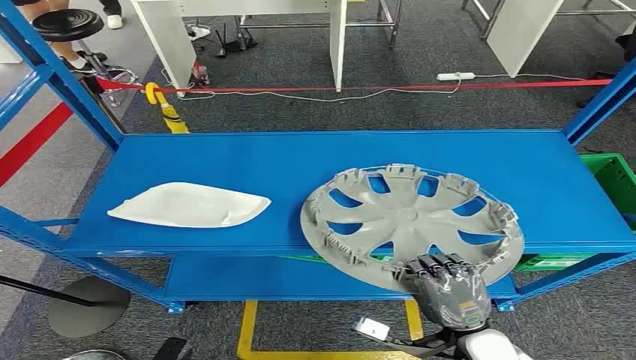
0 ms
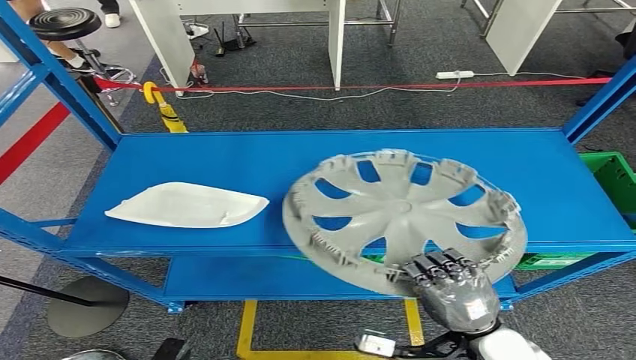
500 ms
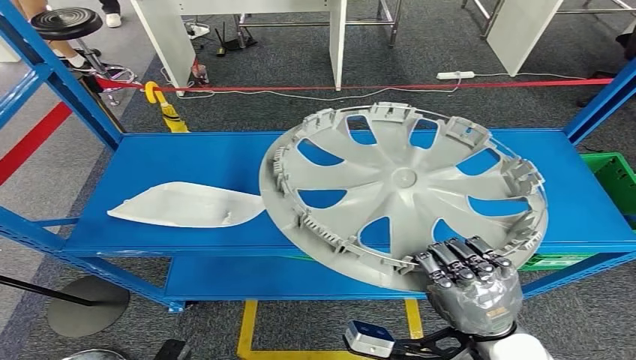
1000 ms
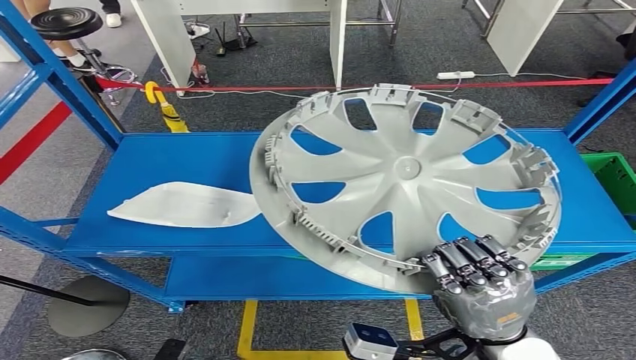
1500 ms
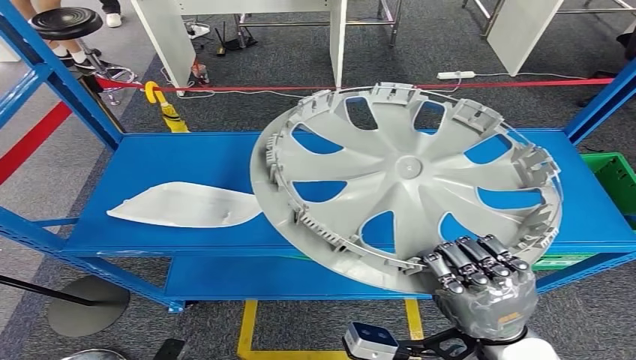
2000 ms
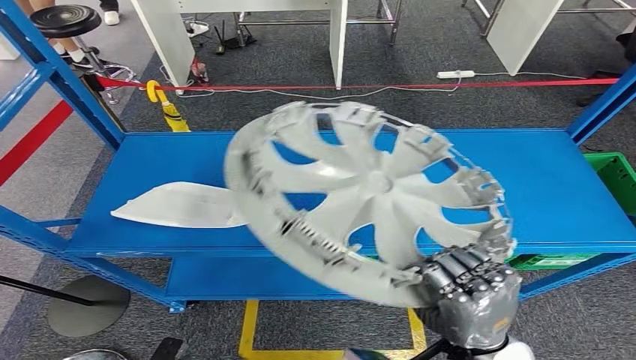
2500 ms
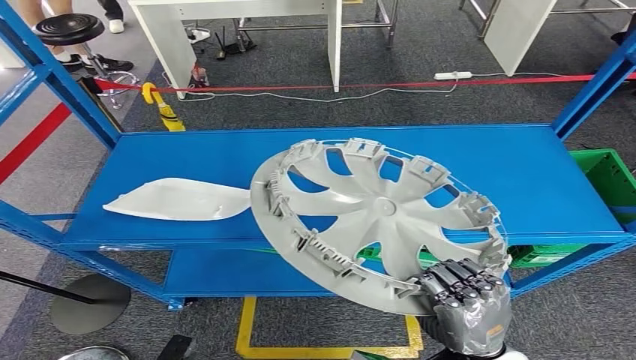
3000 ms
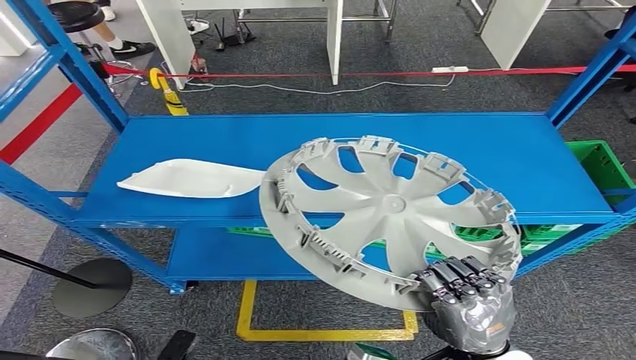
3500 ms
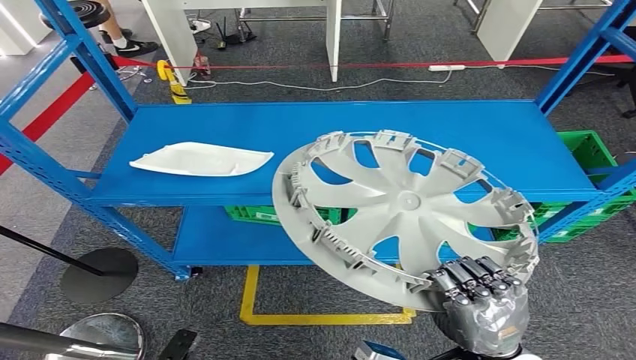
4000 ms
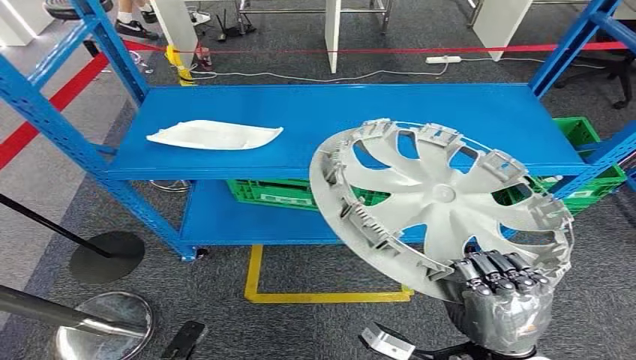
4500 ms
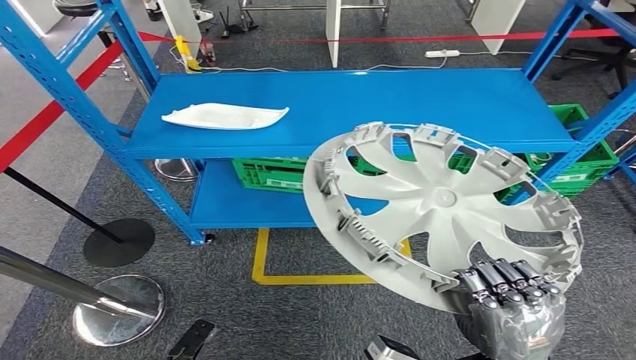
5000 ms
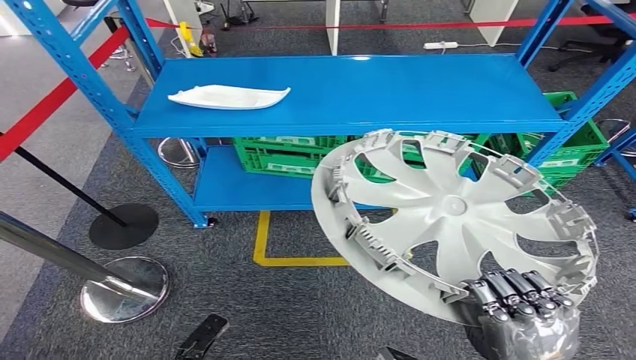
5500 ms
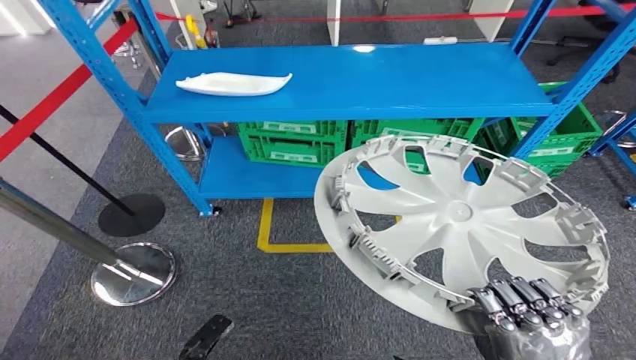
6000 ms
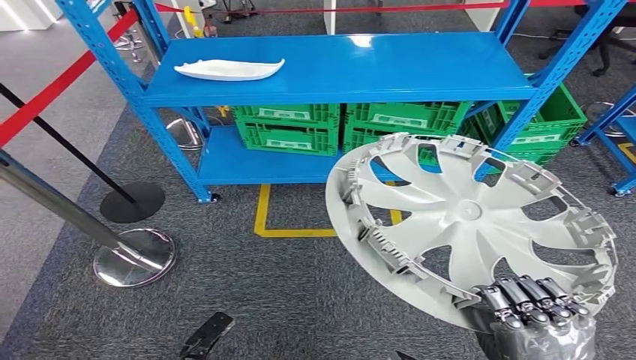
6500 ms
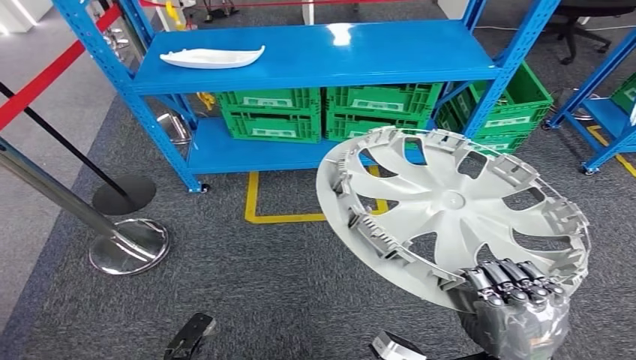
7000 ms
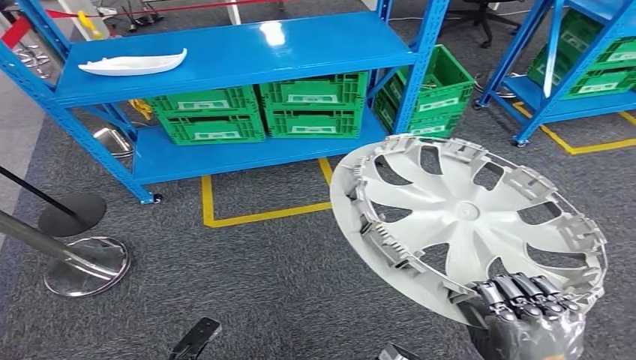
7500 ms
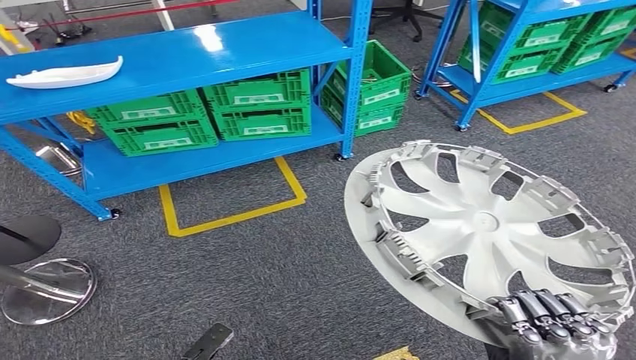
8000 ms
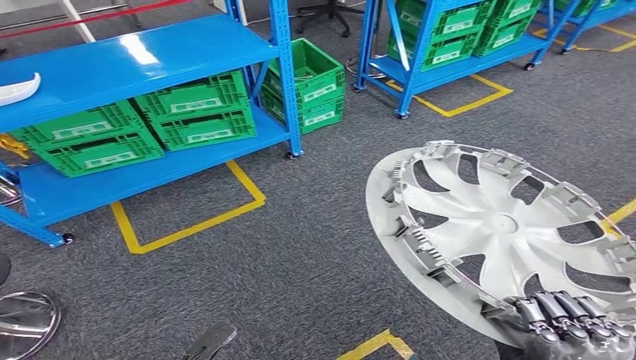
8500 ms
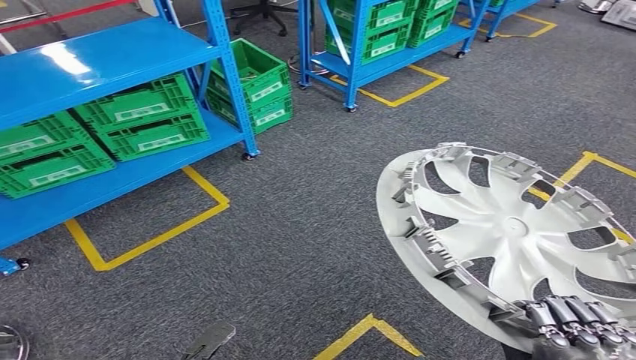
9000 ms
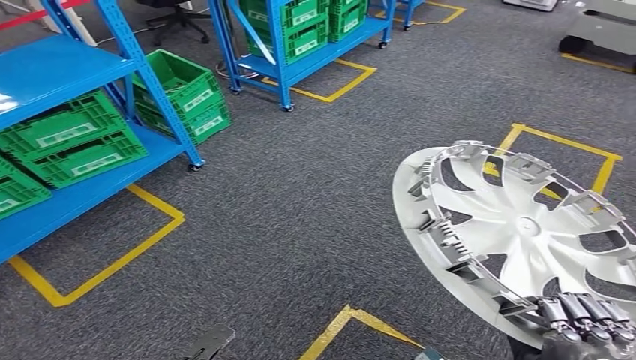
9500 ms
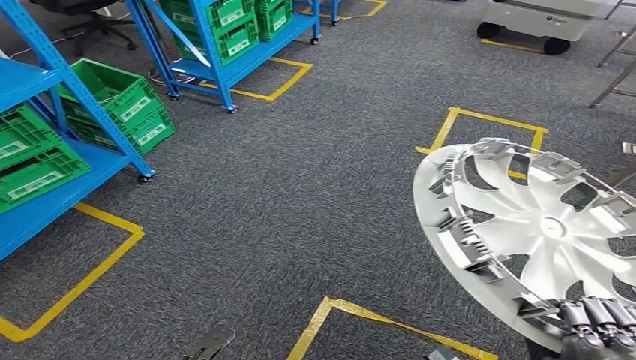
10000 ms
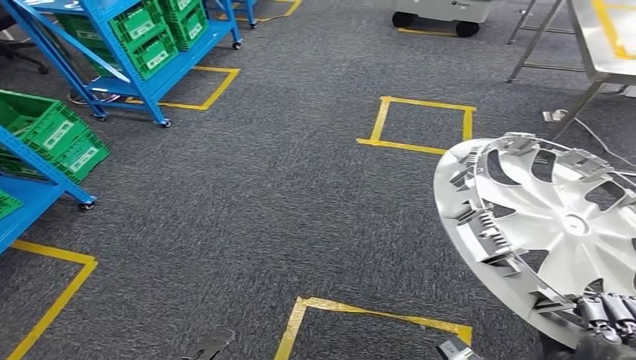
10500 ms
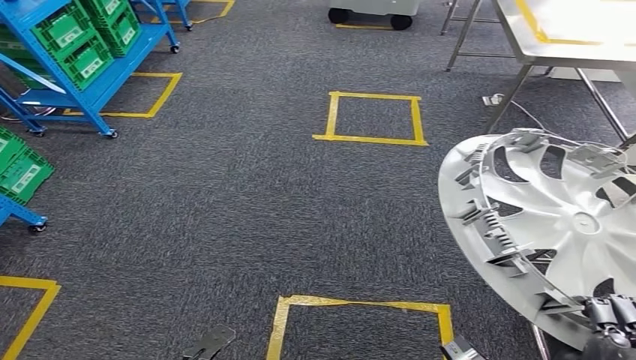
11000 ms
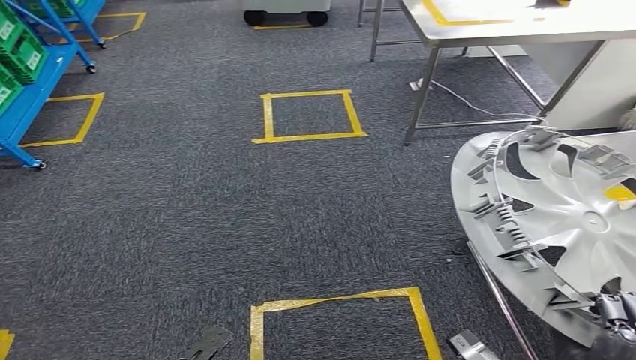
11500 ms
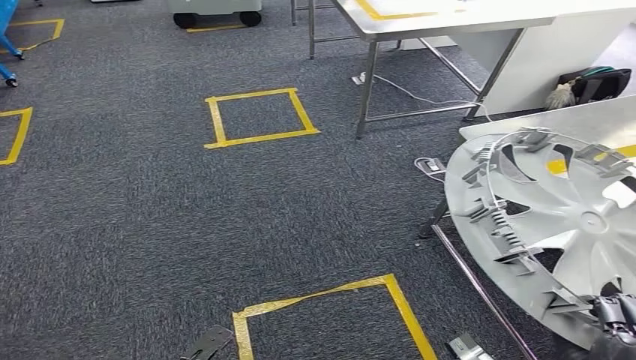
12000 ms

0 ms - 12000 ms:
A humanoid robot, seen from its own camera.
Step, 0 ms - 3500 ms: Pick up the small component from the shelf.

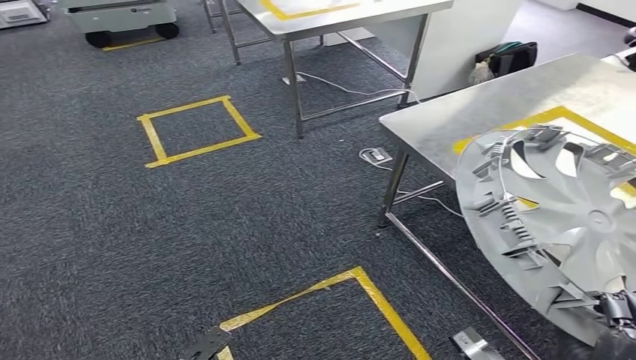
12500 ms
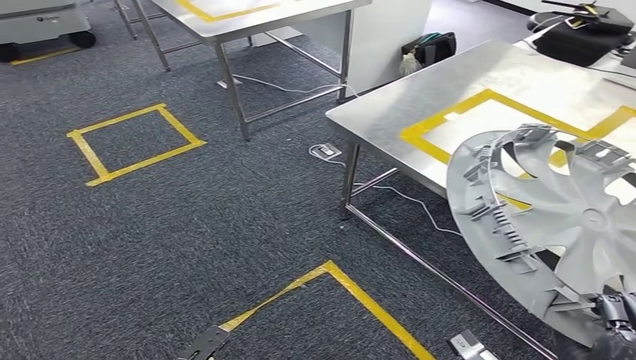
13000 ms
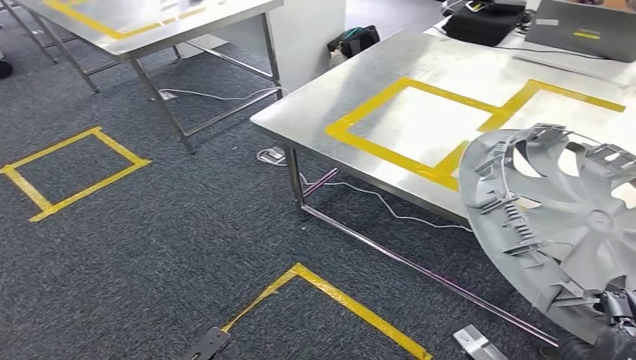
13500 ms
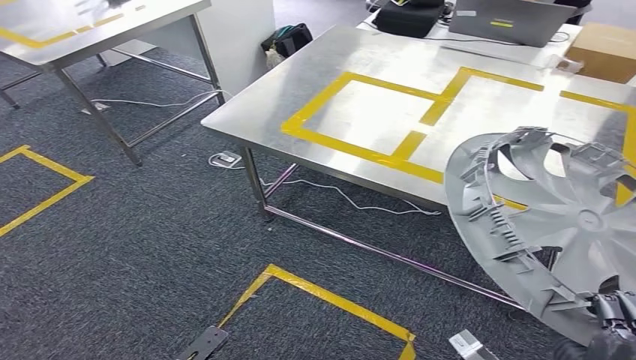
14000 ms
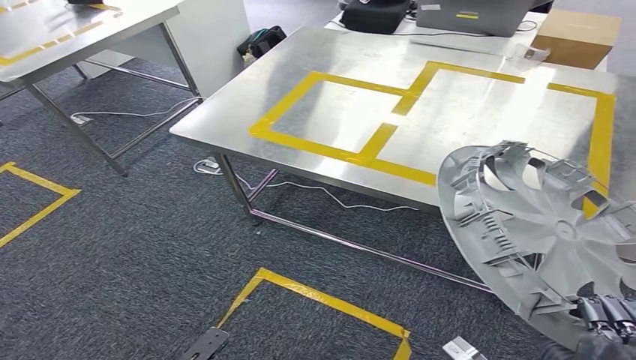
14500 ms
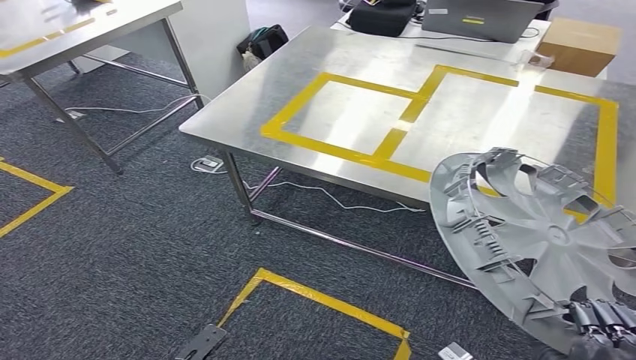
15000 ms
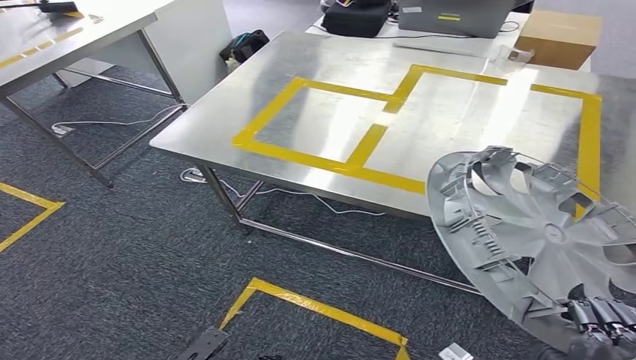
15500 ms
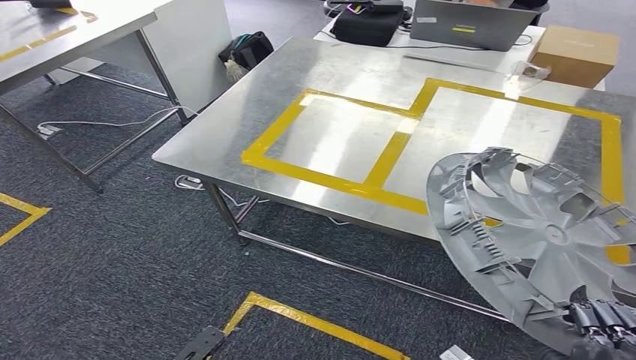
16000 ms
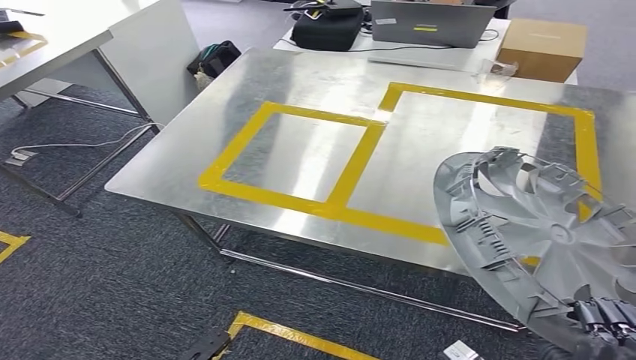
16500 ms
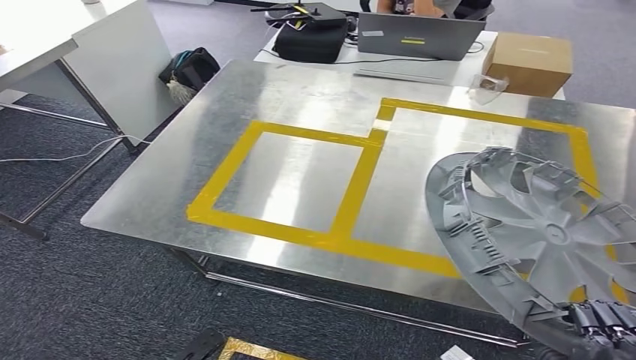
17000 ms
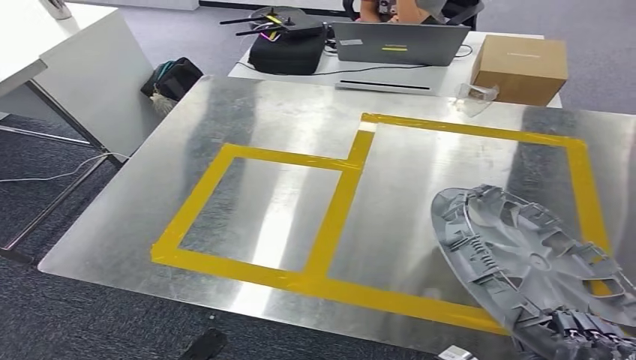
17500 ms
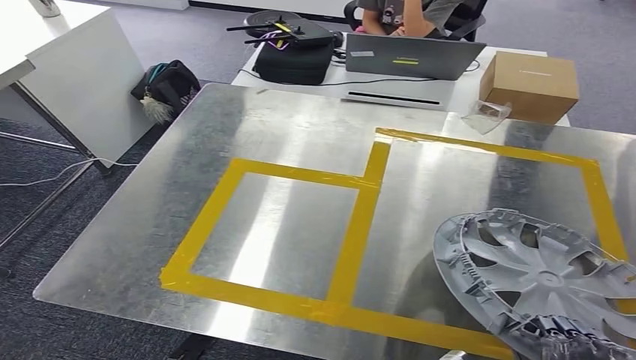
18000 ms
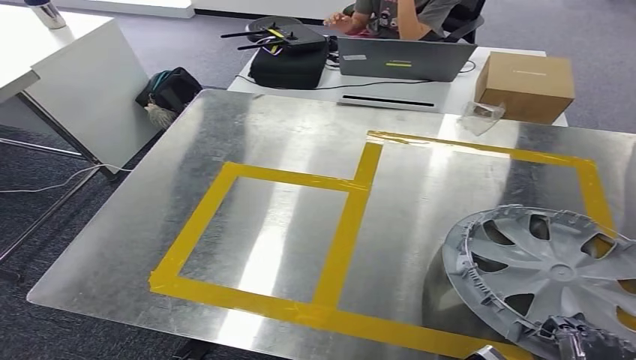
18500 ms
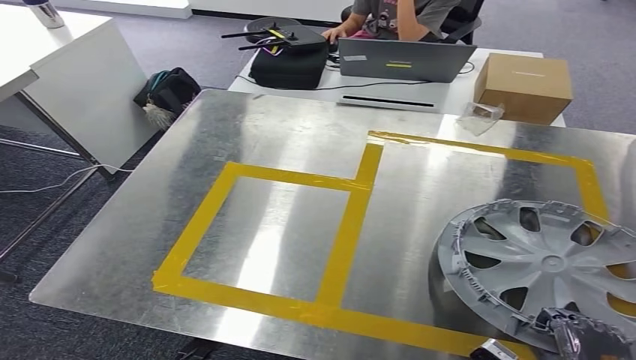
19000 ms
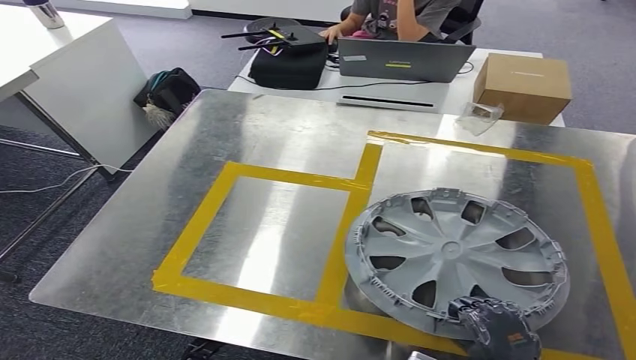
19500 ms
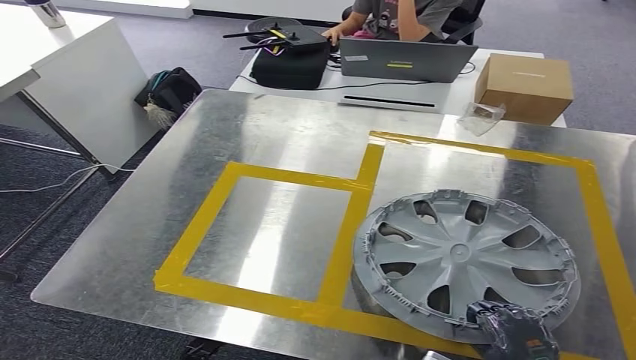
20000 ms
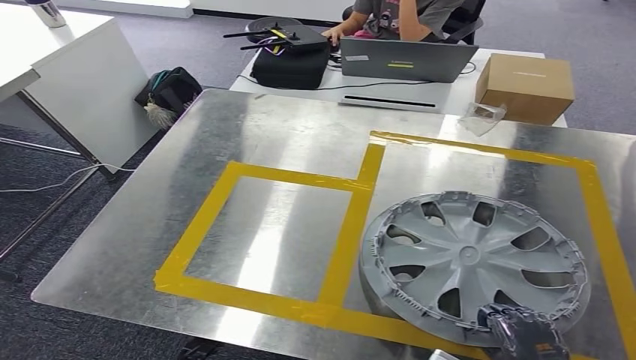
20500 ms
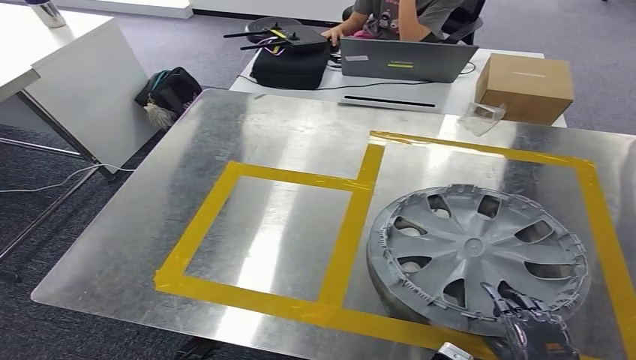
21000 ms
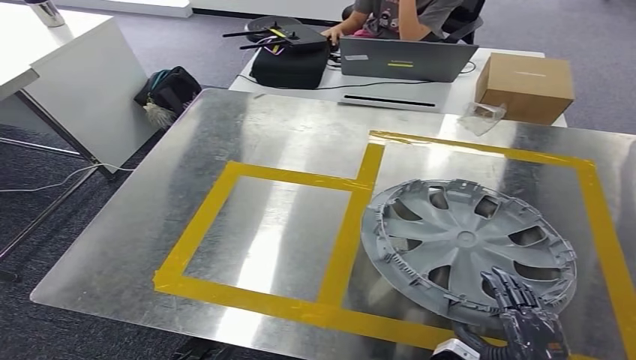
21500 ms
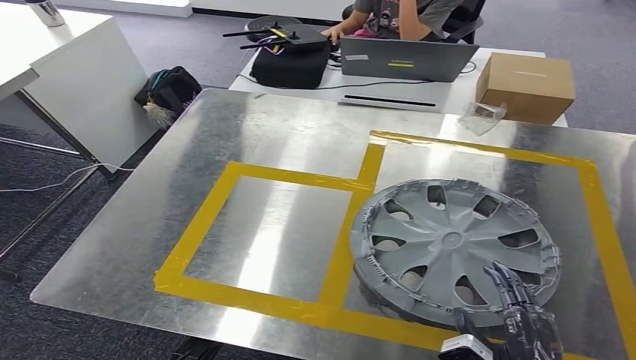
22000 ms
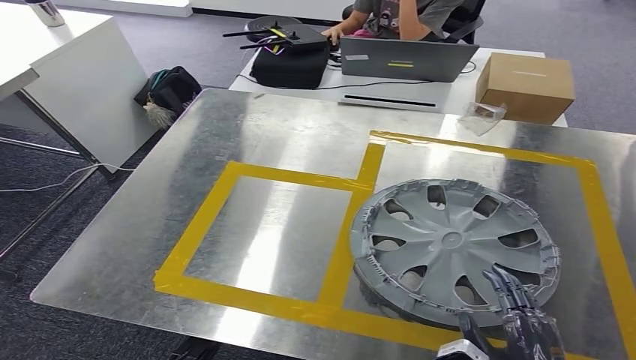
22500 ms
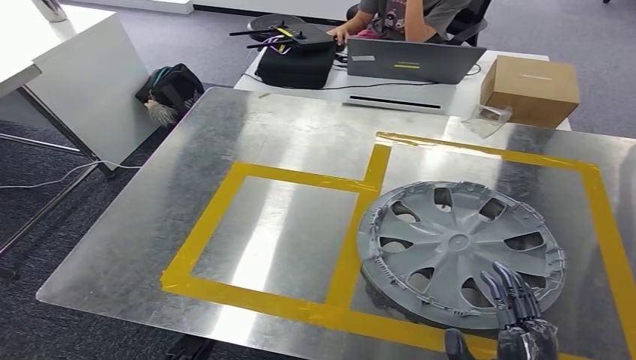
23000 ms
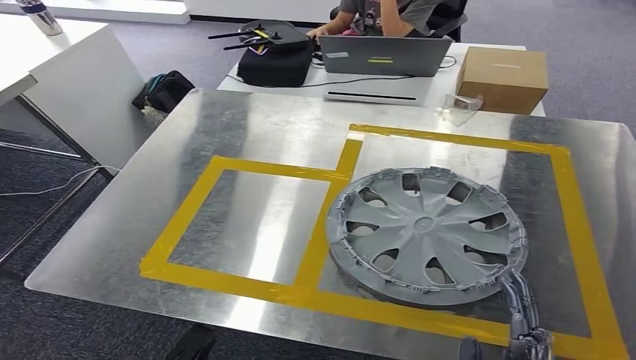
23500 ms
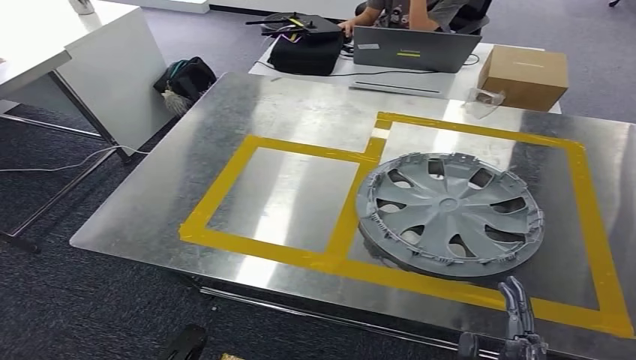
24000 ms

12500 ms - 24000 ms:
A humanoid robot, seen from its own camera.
Step, 12500 ms - 15000 ms: Move the small component to the workbench.
18500 ms - 20000 ms: The right hand ends up roughly 5 cm from where it was.
